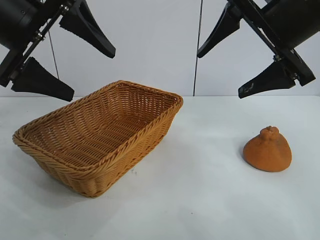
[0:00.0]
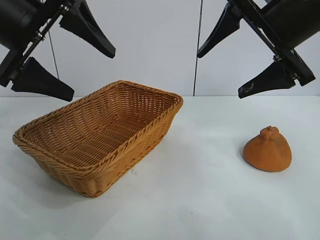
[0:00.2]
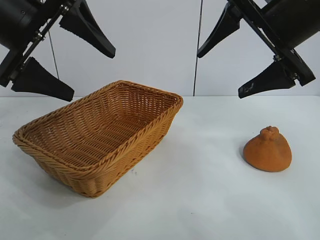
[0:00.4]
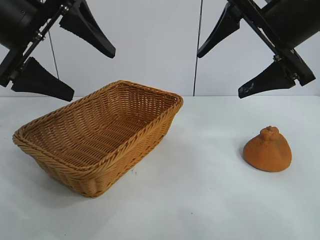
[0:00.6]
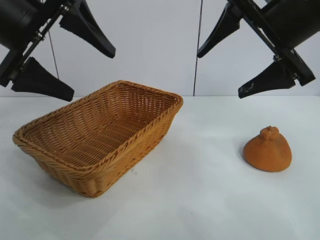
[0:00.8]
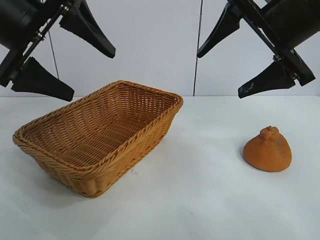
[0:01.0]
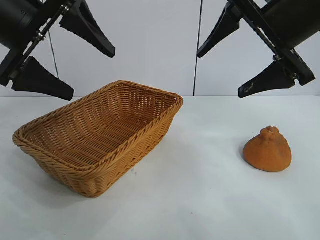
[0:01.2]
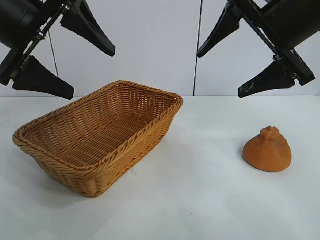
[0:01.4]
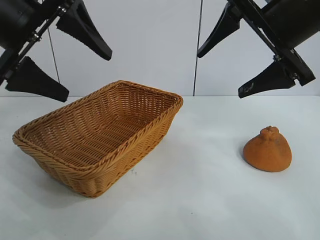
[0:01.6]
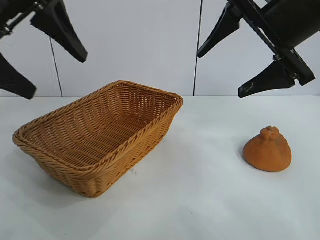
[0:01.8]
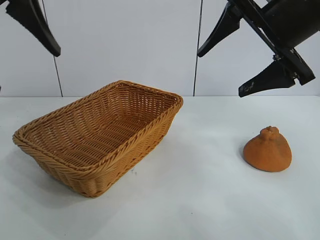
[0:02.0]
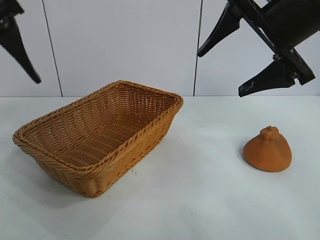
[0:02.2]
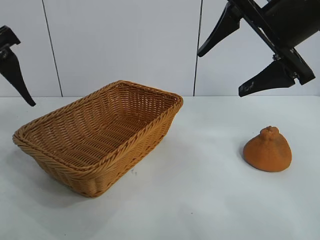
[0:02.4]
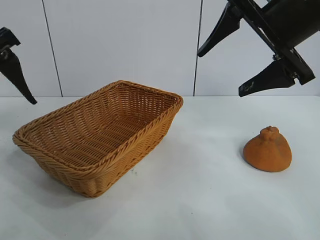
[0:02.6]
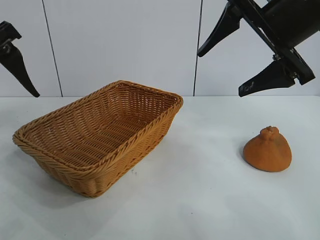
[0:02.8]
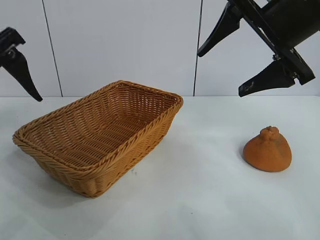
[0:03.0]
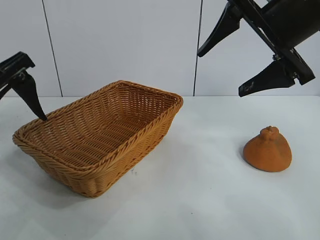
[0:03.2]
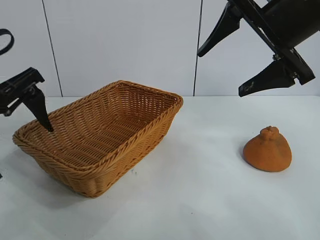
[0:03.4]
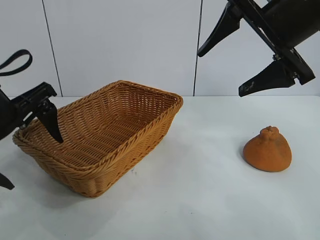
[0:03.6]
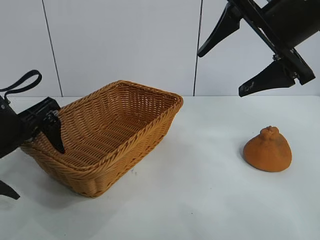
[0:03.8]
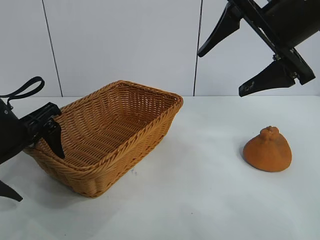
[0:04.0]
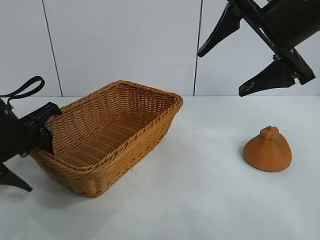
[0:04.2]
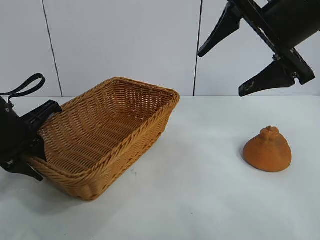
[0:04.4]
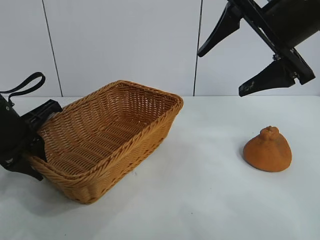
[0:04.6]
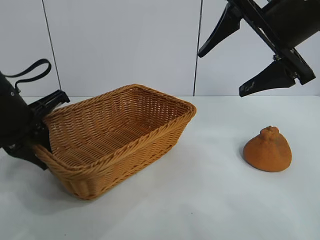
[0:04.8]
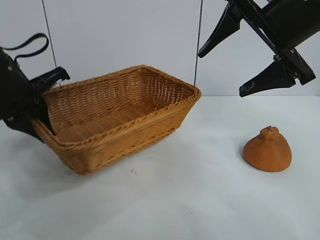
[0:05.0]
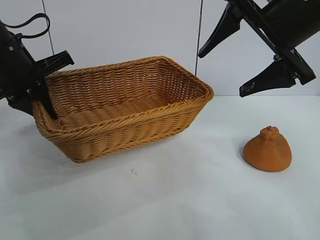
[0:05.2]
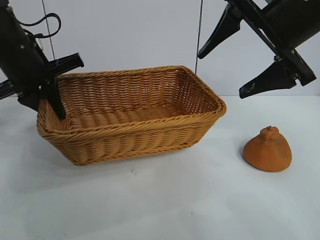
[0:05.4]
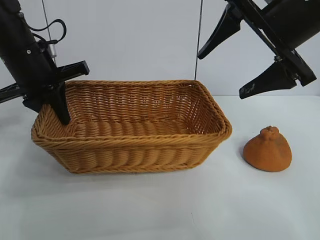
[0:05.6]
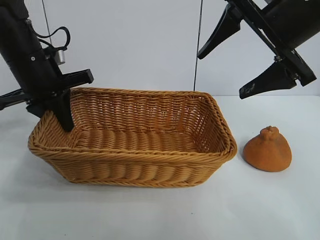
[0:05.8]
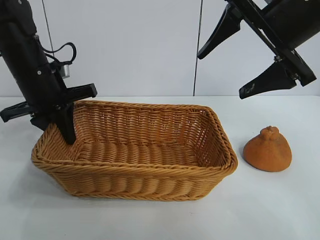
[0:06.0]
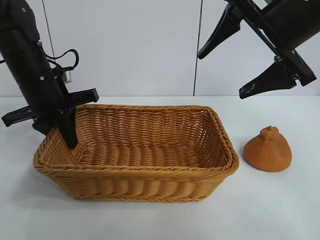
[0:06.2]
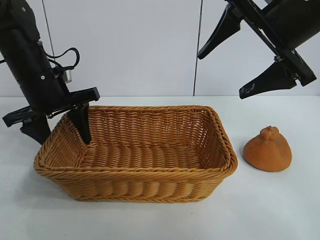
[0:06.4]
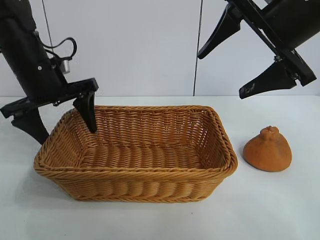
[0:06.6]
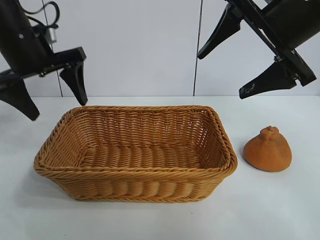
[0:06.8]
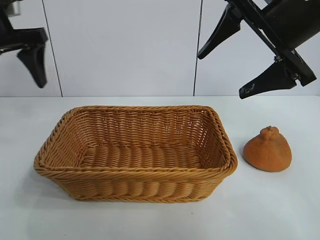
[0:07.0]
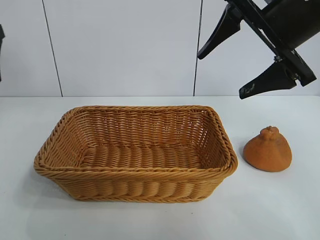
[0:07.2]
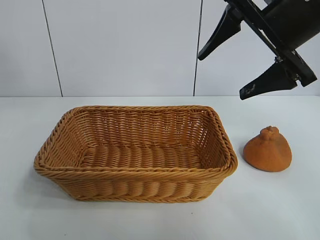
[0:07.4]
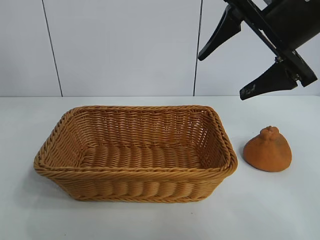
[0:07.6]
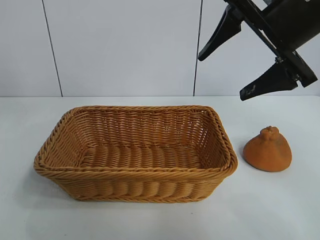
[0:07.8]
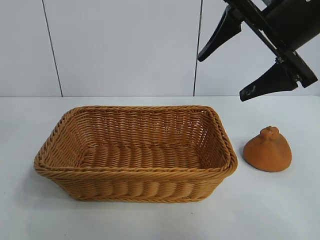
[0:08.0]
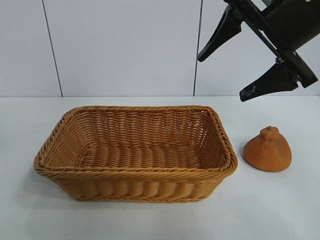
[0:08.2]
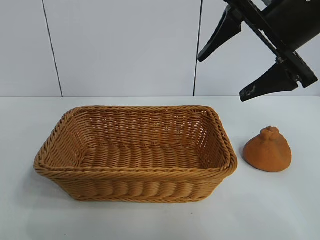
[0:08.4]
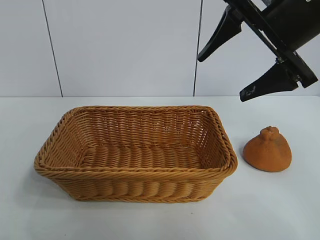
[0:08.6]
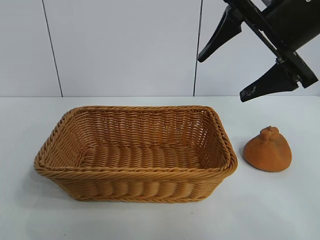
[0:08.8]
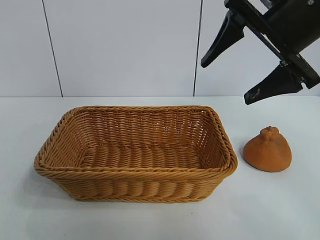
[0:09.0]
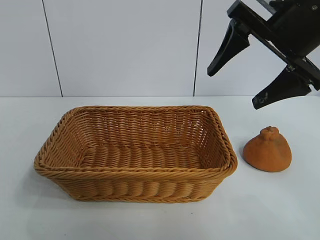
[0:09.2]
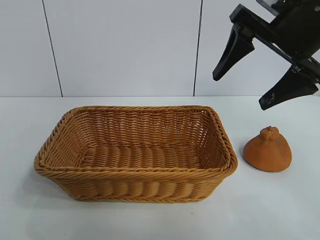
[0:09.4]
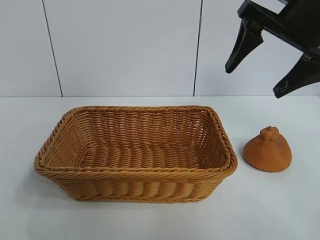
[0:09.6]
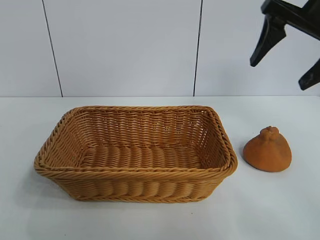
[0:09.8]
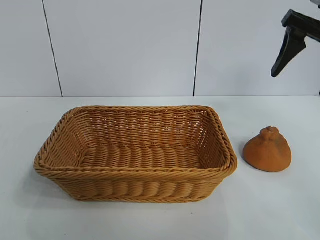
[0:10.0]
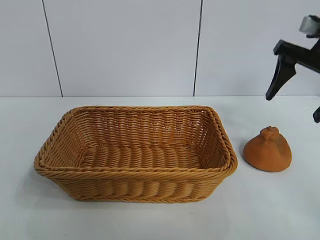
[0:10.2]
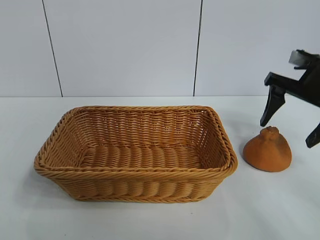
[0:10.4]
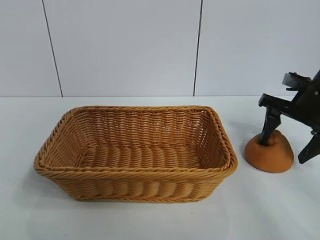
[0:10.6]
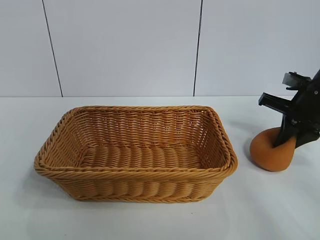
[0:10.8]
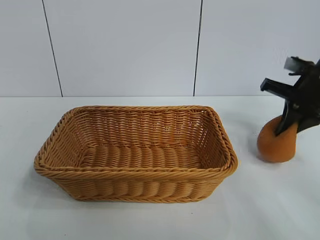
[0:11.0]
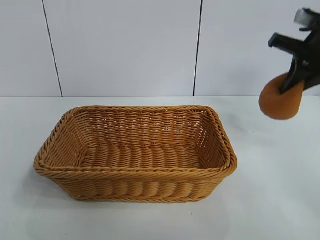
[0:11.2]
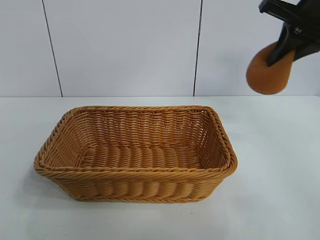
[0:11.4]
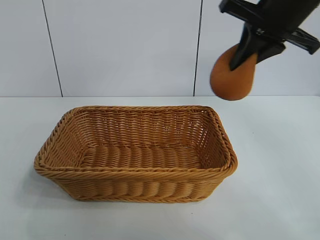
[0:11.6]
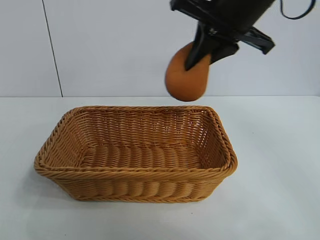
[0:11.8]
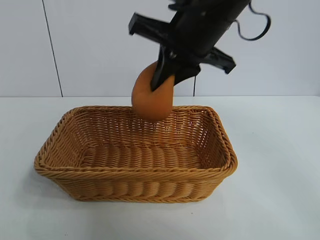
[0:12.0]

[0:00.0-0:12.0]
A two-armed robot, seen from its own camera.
Task of the whole recording: pick up the orange and put it into the basket.
Step, 0:01.0 to 0:04.4: Grasp the basket with left gripper.
Step, 0:04.6 to 0:06.8: Place the basket in the center of view with left gripper.
Step, 0:07.0 to 0:10.6: Grasp the orange with right gripper.

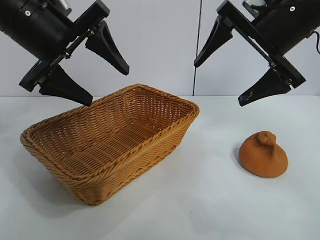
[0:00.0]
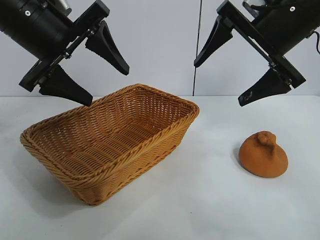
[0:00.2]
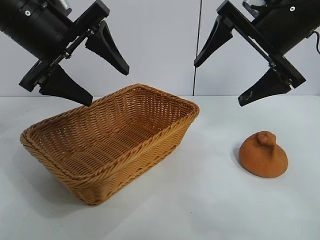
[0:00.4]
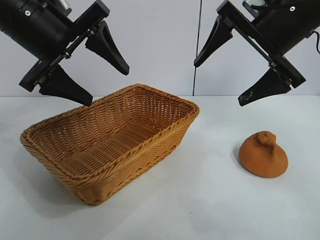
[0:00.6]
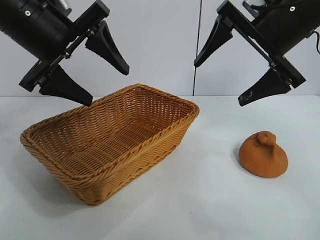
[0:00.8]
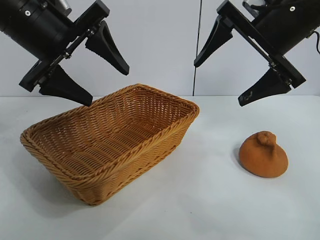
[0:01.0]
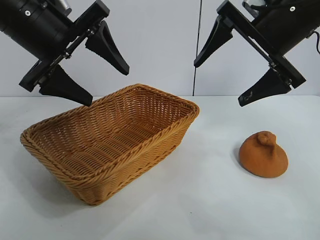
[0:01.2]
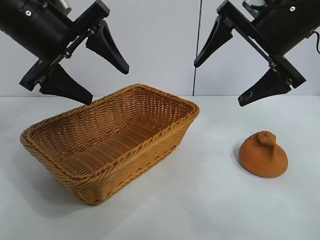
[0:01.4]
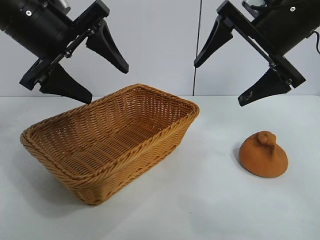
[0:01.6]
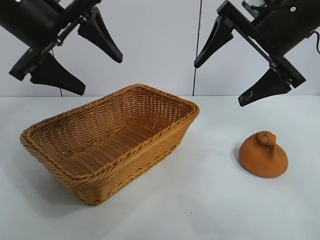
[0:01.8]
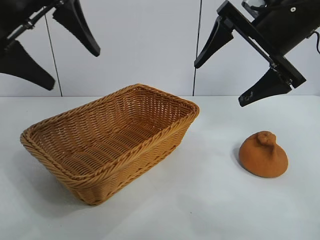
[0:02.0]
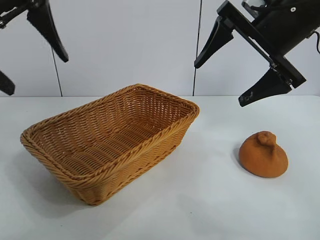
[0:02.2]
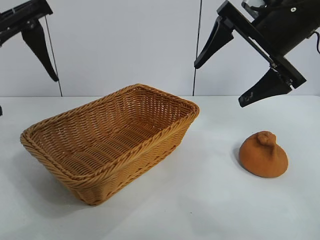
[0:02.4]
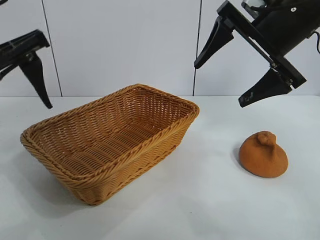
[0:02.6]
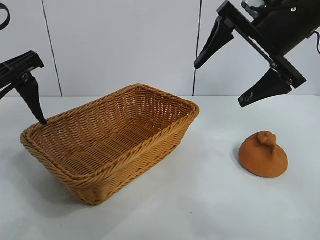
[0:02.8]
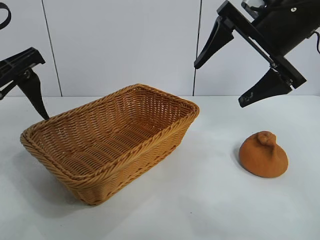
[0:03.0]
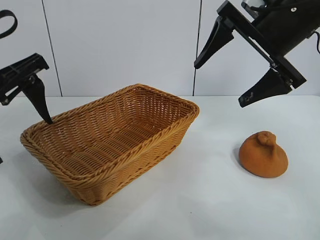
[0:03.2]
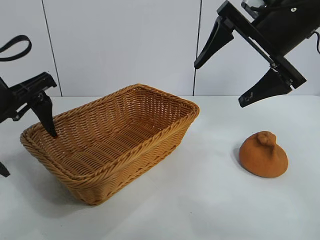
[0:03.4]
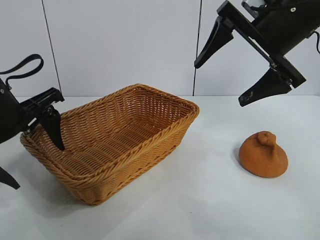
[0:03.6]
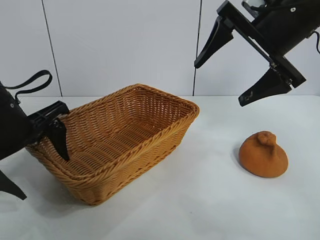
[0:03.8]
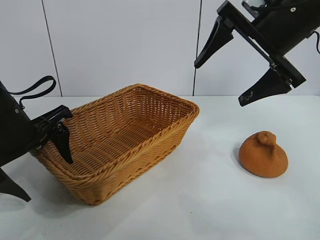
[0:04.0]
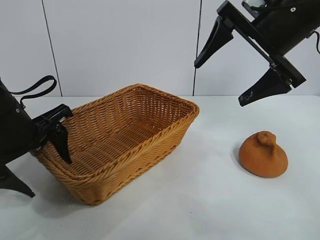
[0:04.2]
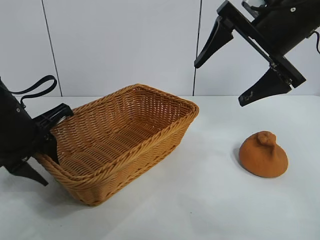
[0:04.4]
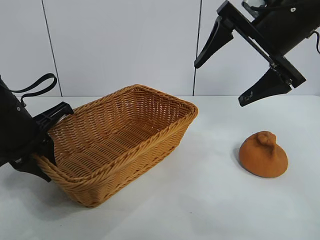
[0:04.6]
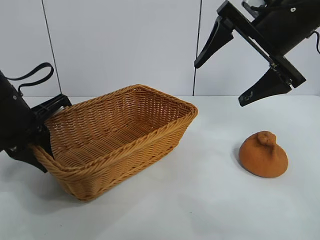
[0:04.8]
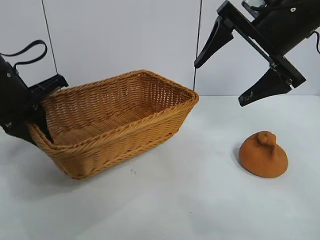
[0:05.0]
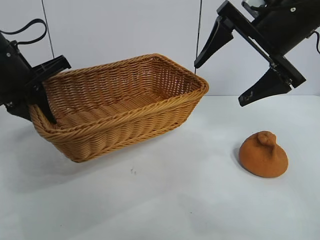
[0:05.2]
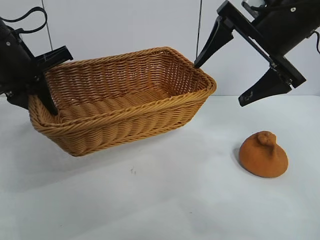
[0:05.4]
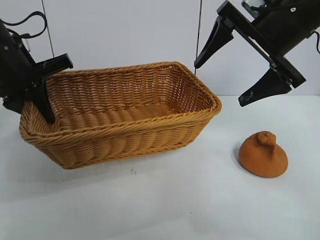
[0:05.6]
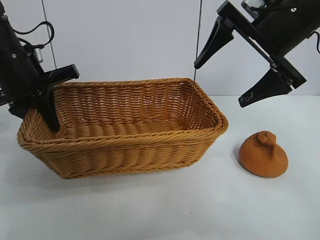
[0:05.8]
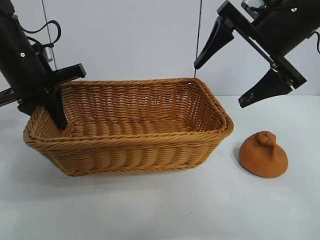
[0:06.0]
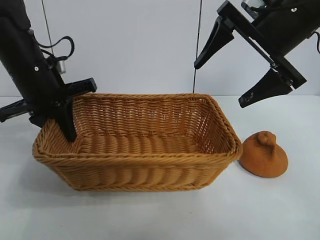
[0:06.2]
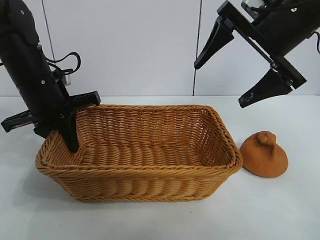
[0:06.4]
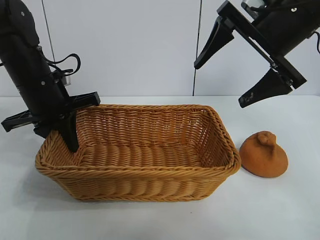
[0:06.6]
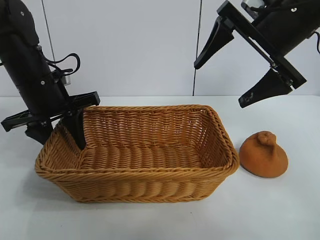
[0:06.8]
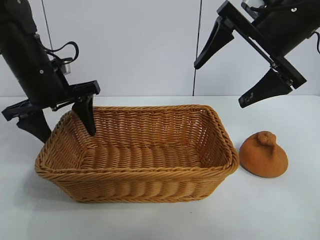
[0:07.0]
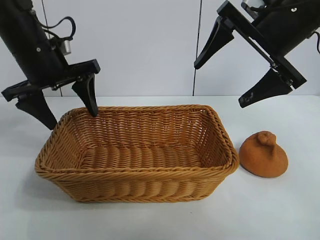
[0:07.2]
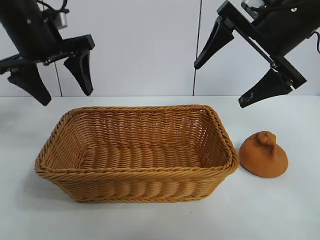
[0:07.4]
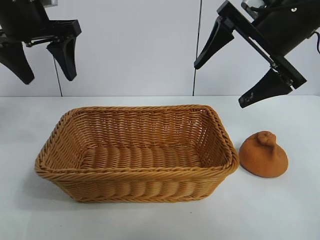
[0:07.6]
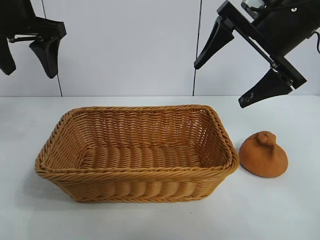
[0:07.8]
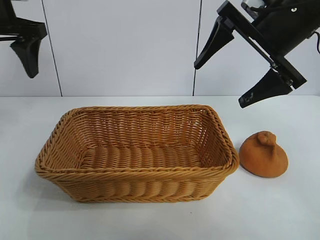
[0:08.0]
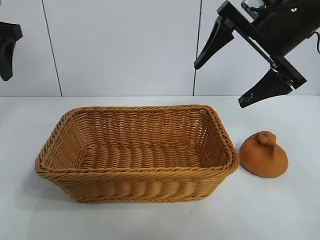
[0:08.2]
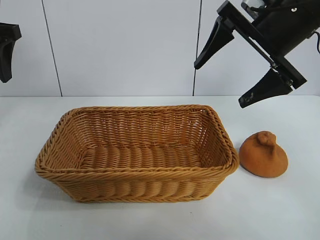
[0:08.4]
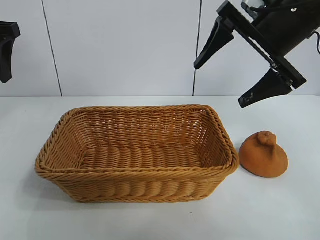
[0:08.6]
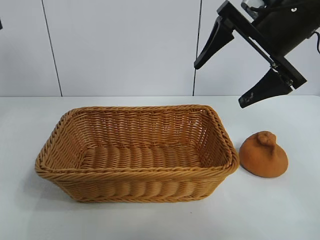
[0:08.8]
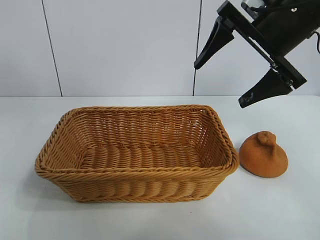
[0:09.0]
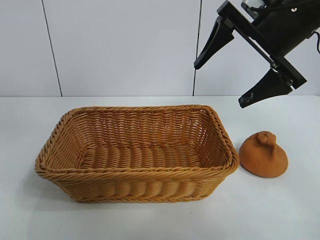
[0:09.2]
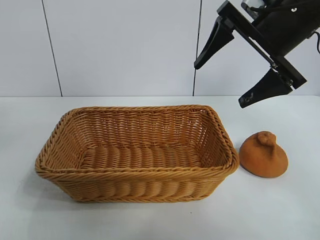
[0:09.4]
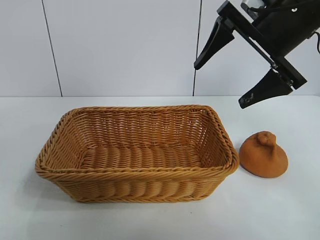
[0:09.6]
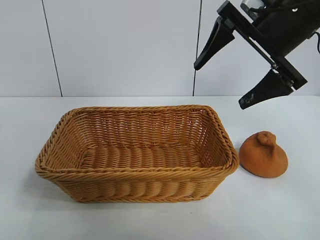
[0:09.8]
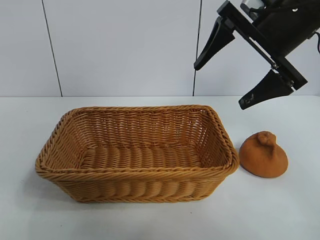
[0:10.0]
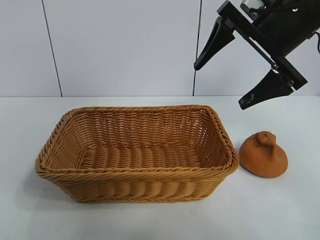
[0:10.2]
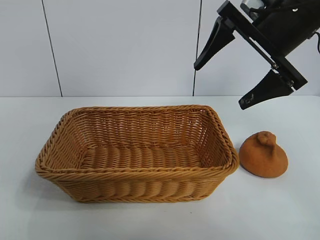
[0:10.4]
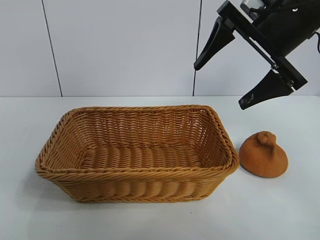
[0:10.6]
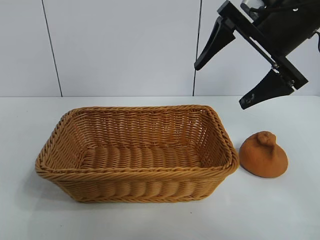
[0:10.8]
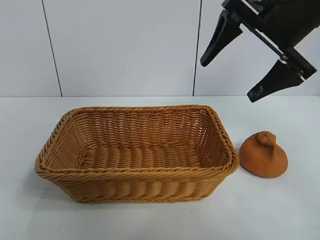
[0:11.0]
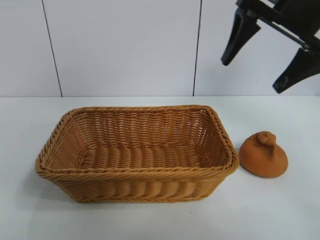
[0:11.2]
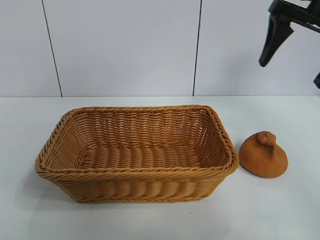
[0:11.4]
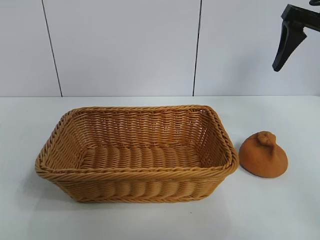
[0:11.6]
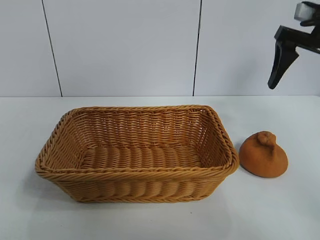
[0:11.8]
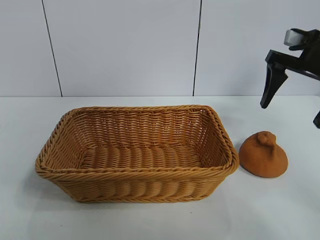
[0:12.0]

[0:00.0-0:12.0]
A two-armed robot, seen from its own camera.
Task of the whole recording: pick up the orange and put it into the basket.
Step, 0:01.8 to 0:04.4: Grasp the basket with left gripper.
Step, 0:04.6 to 0:06.8: Place the basket in the center of view with left gripper.
